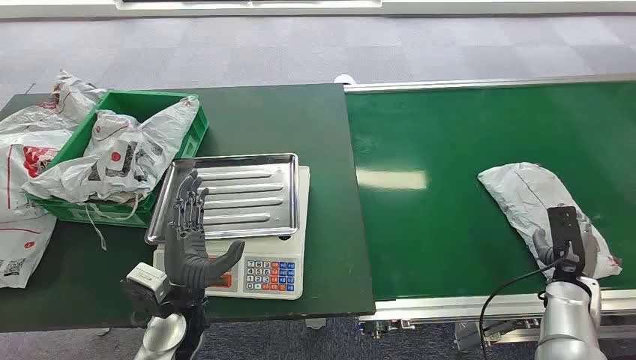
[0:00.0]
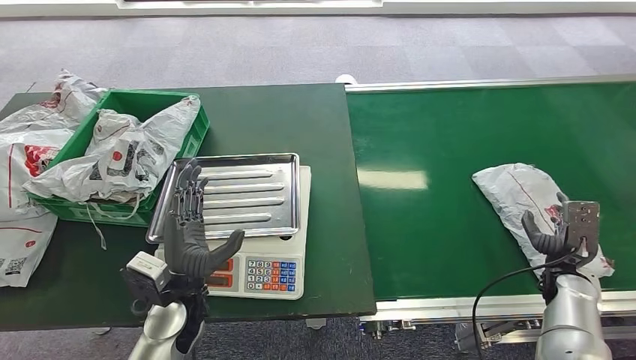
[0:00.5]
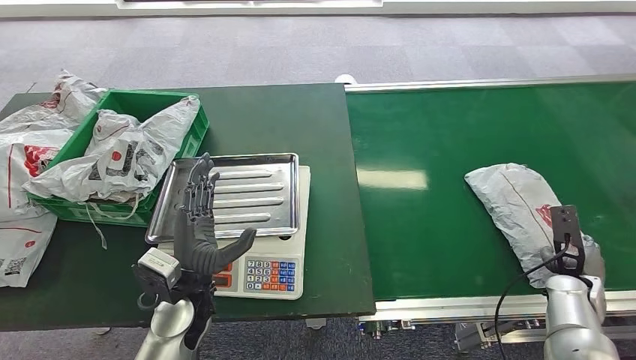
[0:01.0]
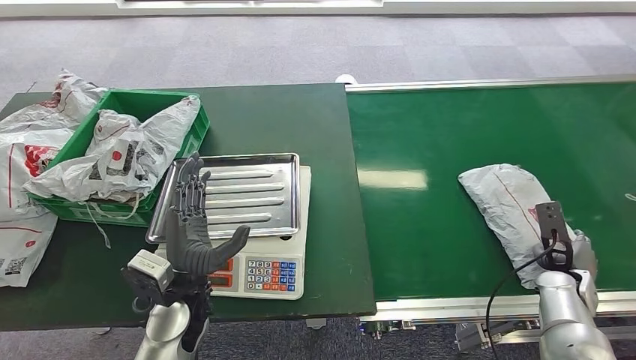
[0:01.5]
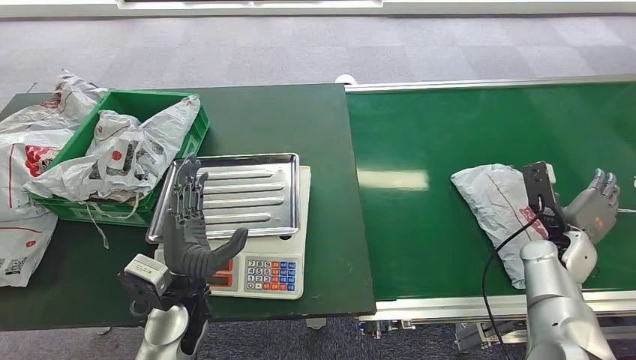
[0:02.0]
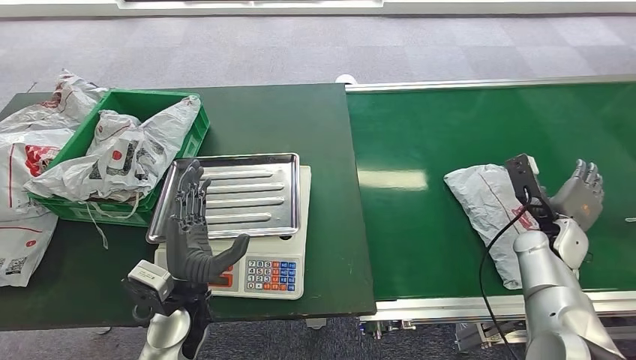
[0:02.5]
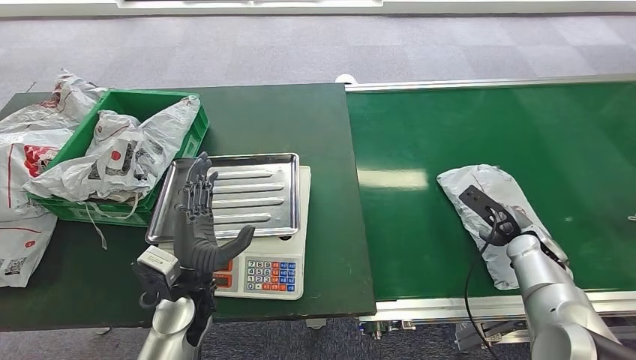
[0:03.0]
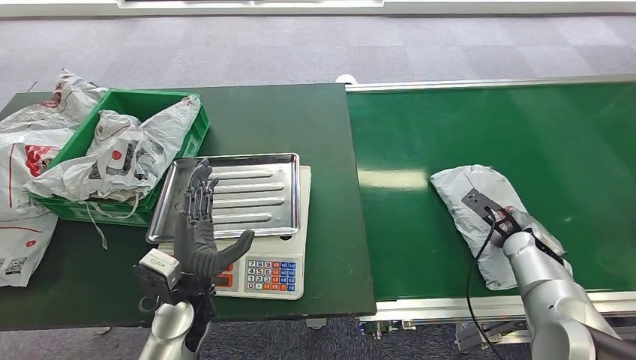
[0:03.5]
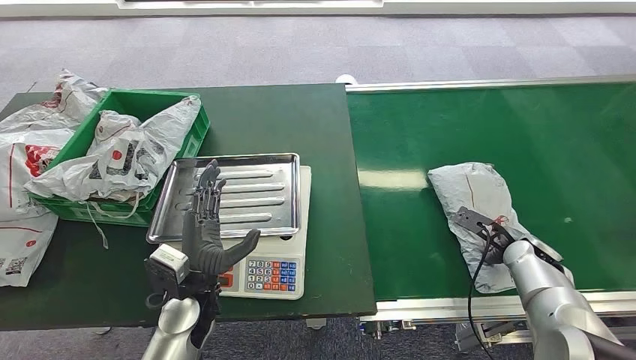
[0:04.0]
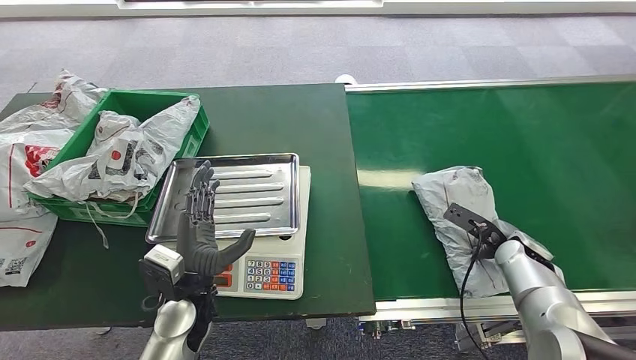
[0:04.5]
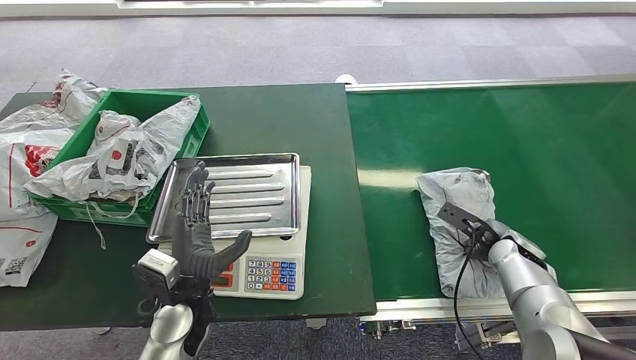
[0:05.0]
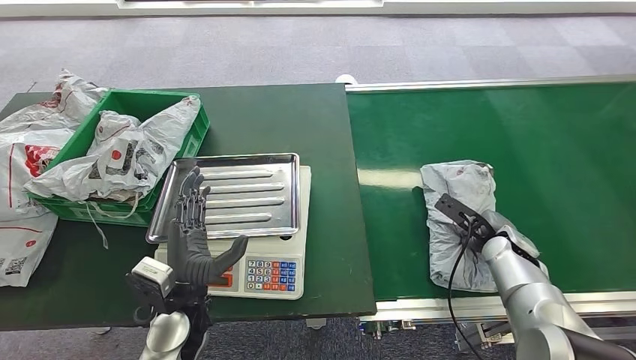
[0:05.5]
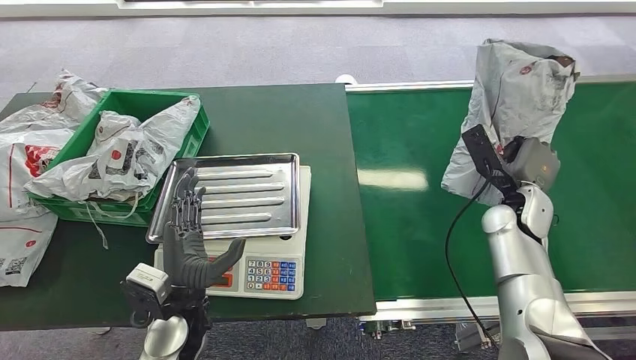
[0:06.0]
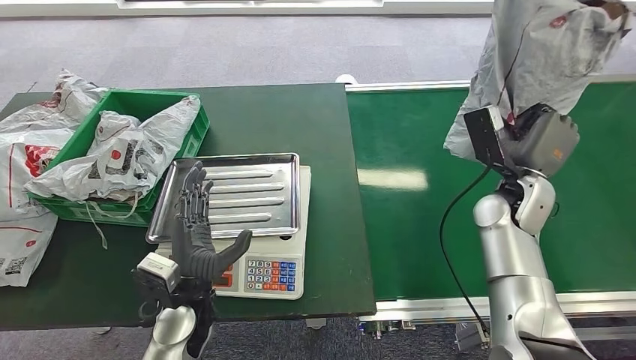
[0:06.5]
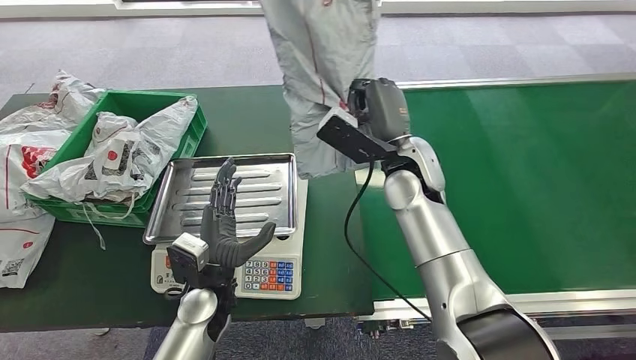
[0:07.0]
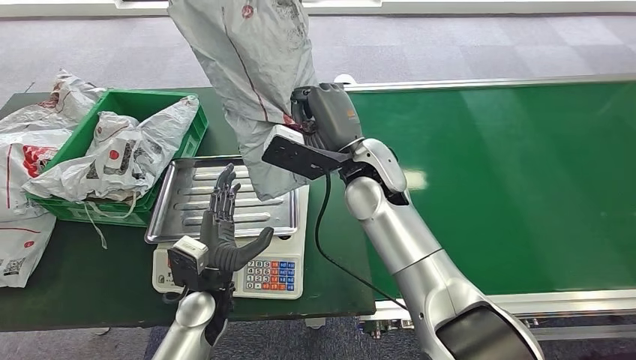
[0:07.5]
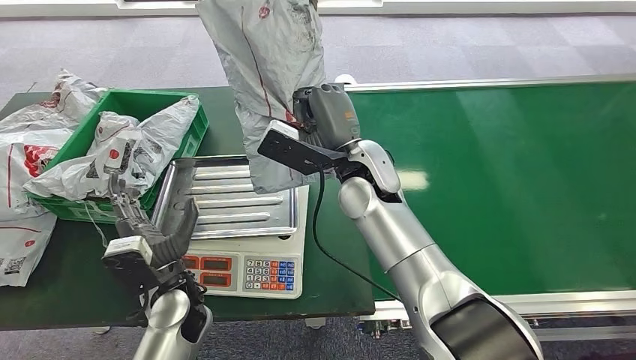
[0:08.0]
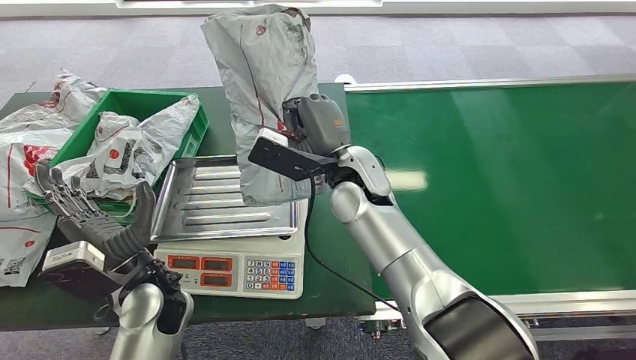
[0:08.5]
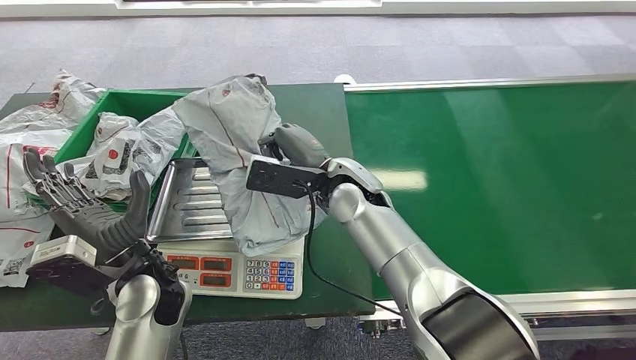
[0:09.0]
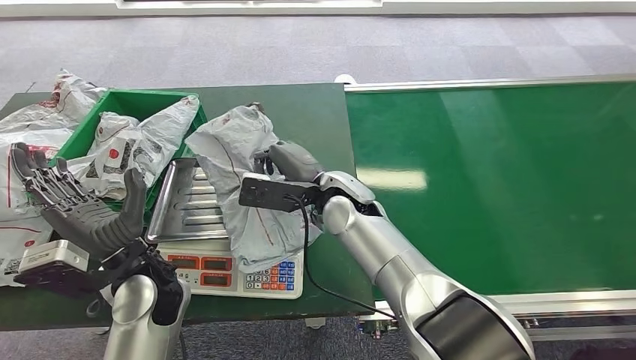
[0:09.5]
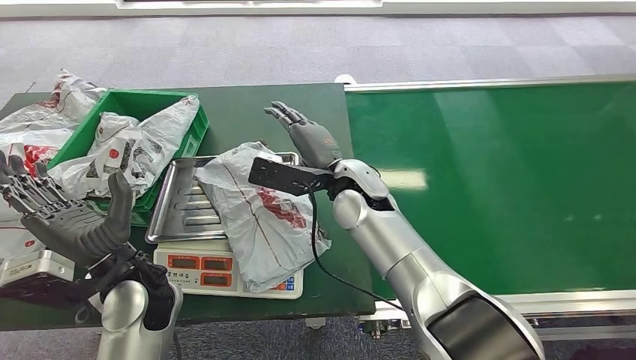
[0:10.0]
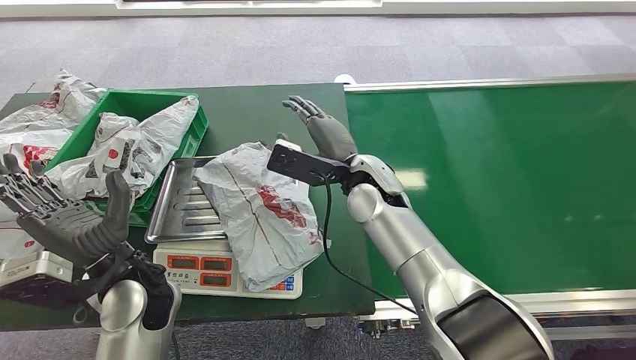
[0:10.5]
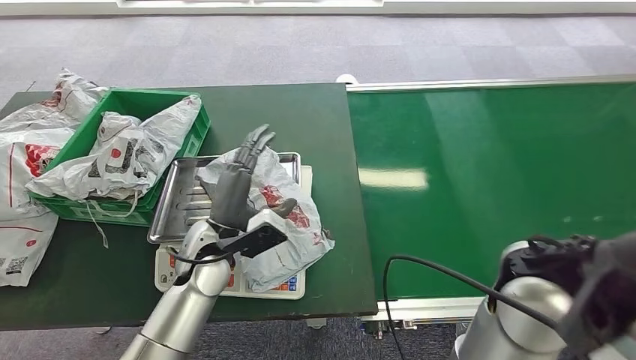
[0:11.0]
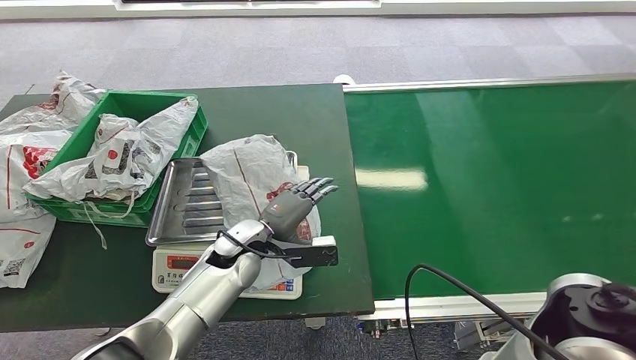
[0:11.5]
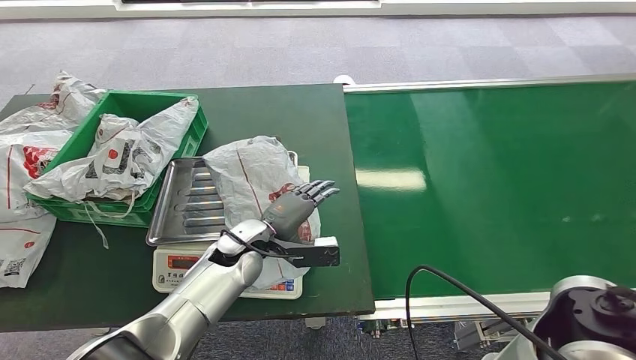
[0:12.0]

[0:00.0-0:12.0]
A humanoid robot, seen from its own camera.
Step, 0:00.0 to 0:06.0: Pick up the package from the conveyor belt.
Step, 0:06.5 to 0:10.5: Place the package onto the inbound machine.
0:04.0 to 0:06.0: The right hand shifts roughly 10 cm upward and to the left.

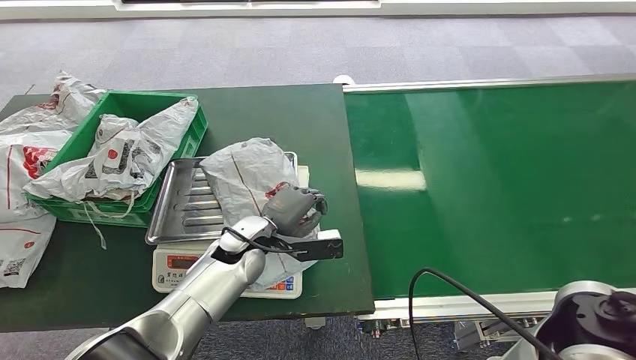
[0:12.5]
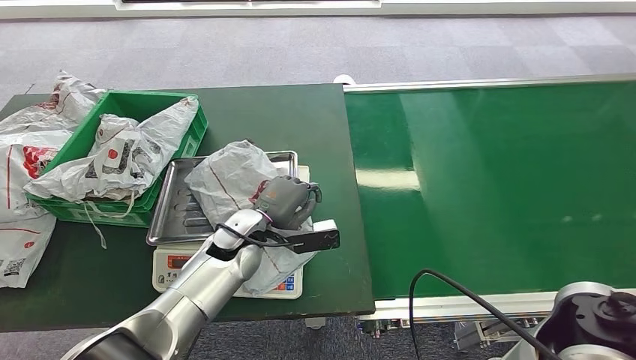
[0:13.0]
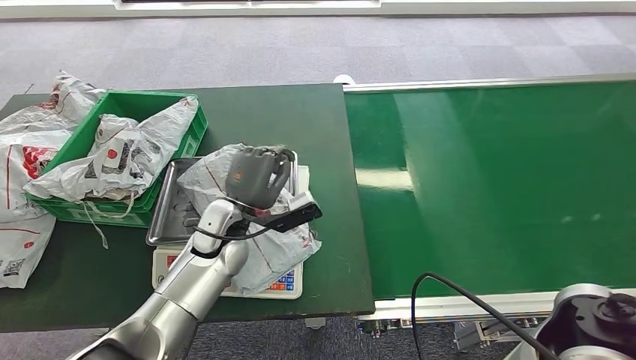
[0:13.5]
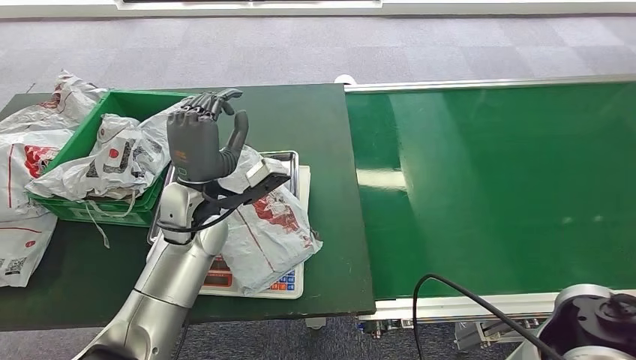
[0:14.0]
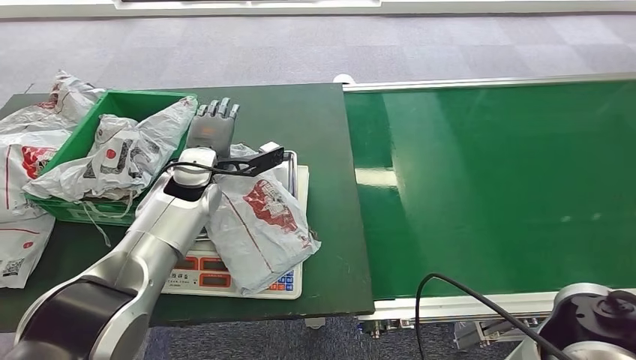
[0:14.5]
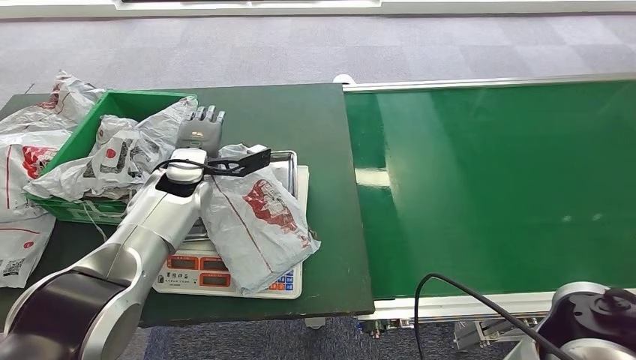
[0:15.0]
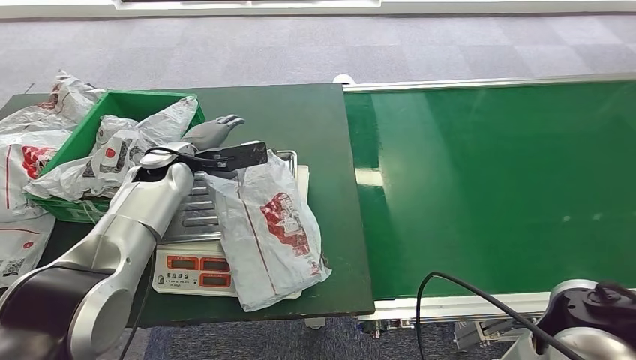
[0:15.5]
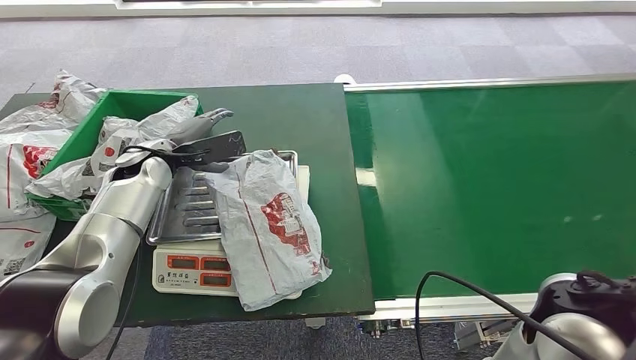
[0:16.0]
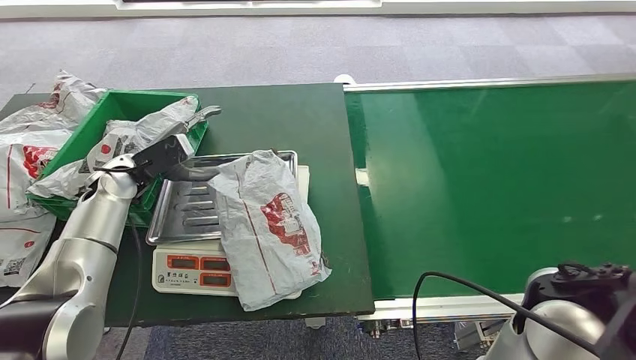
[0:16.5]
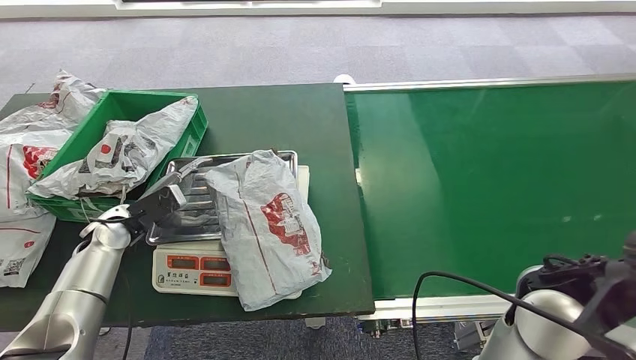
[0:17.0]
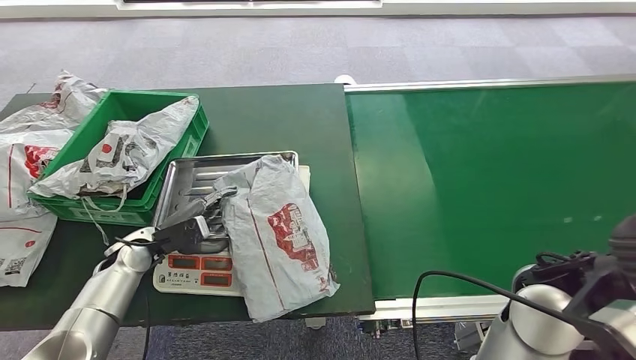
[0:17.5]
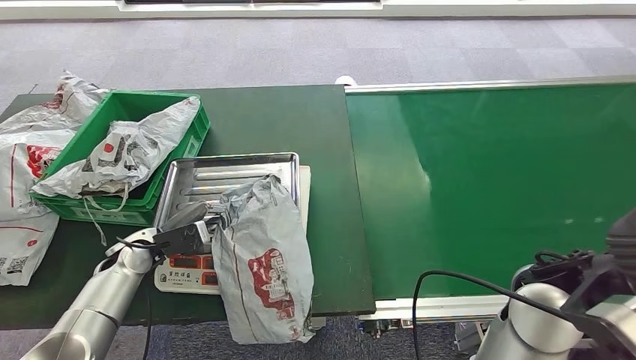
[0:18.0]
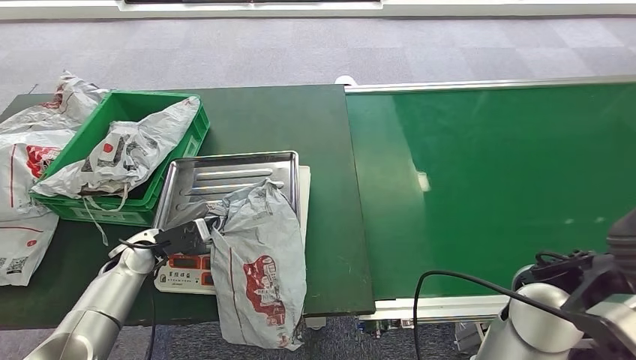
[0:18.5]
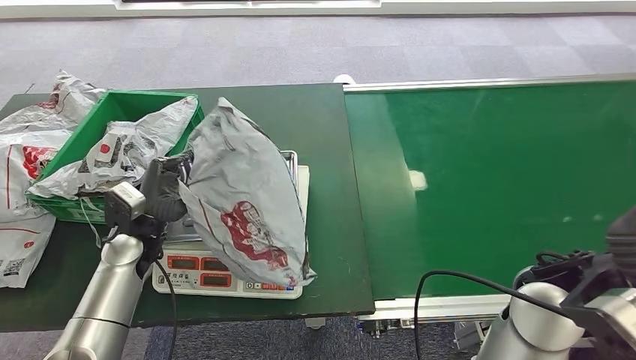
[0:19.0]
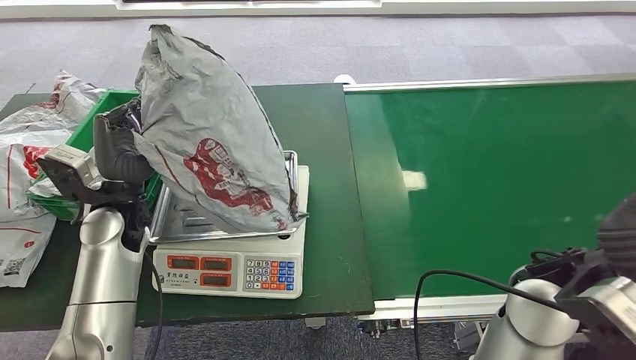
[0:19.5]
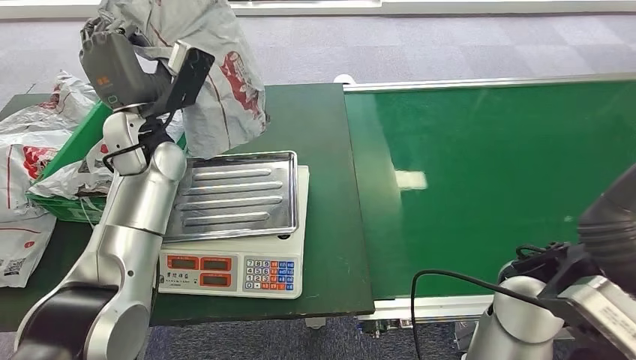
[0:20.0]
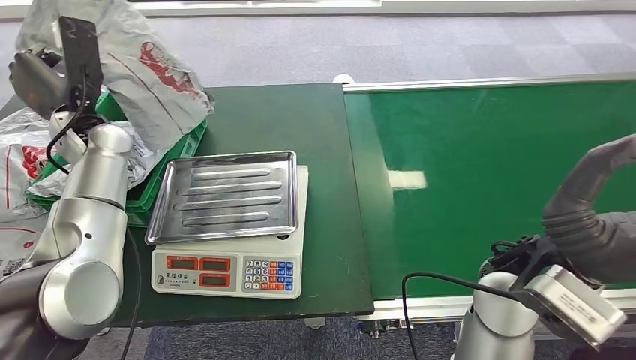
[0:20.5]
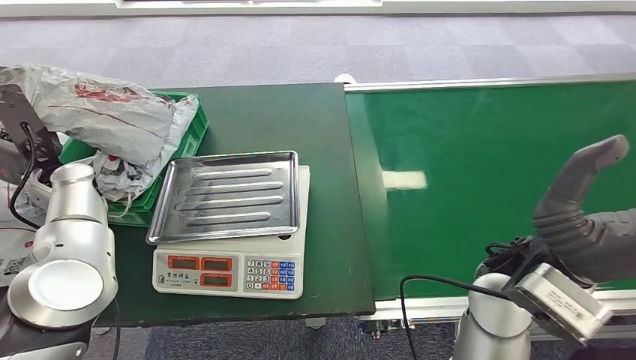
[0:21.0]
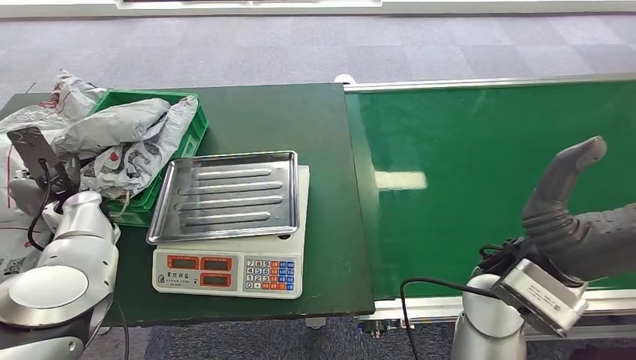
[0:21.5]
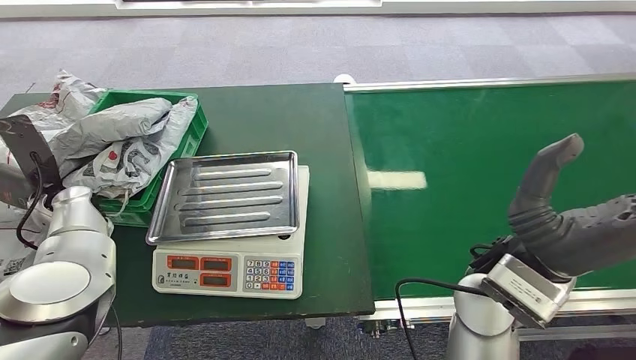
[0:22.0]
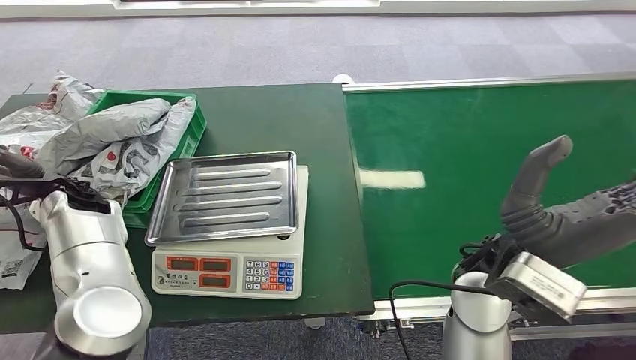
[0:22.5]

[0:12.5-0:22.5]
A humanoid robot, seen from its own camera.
Step, 0:12.5 to 0:19.5: Pick up the package from the inbound machine.
Step, 0:20.0 to 0:22.5: Place the package into the parcel locker.
